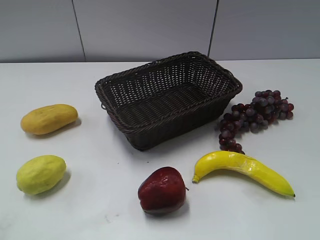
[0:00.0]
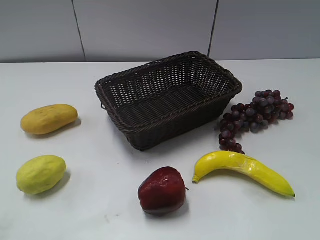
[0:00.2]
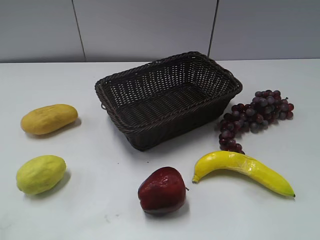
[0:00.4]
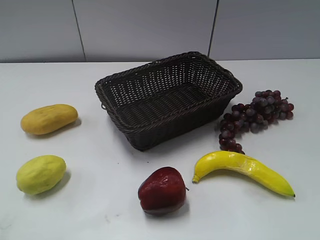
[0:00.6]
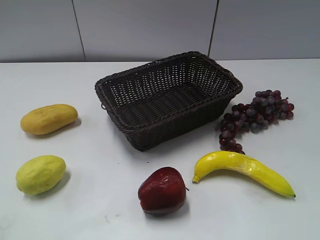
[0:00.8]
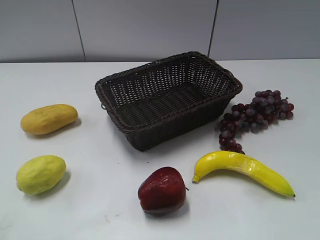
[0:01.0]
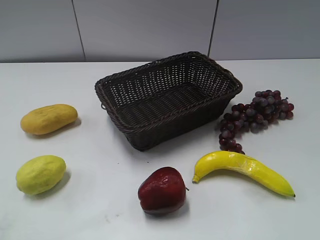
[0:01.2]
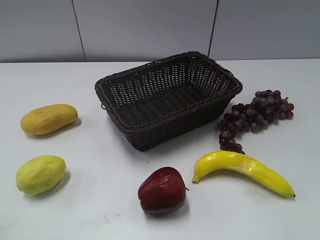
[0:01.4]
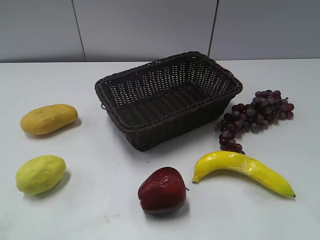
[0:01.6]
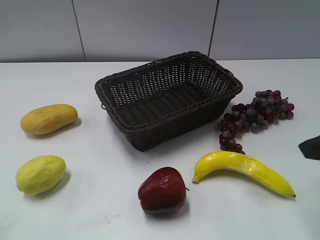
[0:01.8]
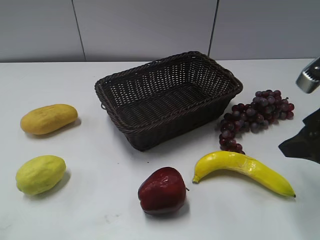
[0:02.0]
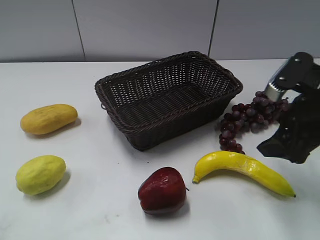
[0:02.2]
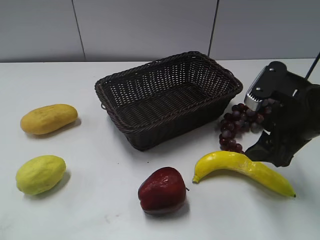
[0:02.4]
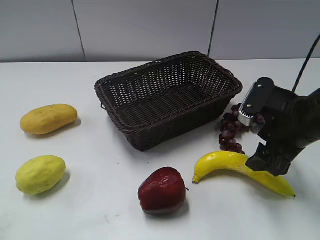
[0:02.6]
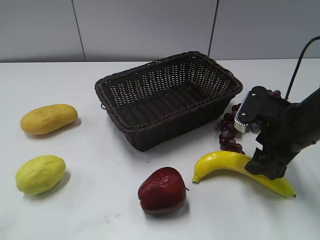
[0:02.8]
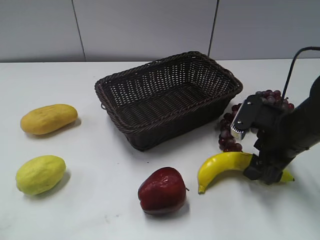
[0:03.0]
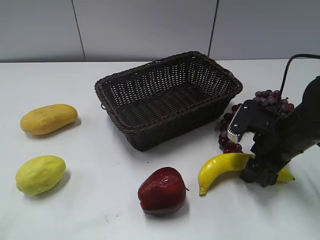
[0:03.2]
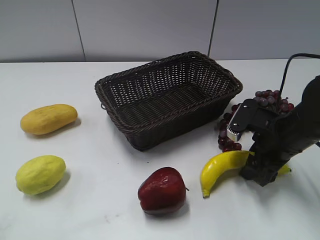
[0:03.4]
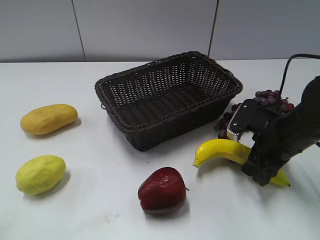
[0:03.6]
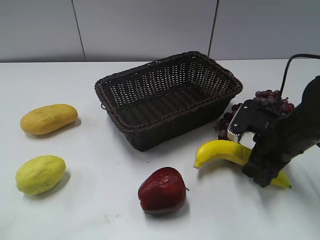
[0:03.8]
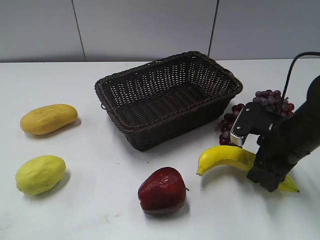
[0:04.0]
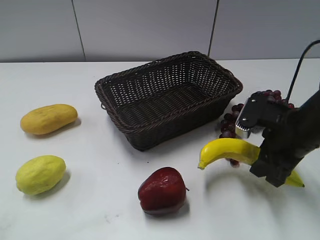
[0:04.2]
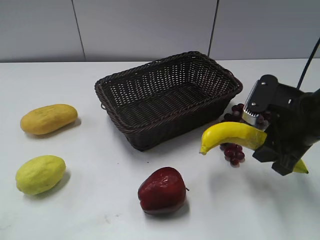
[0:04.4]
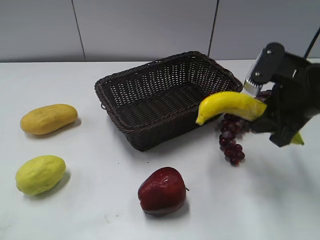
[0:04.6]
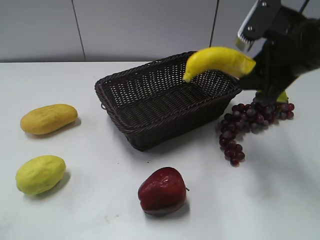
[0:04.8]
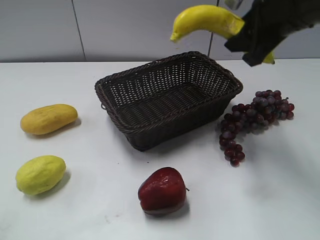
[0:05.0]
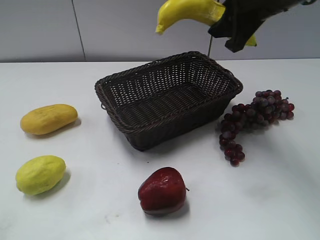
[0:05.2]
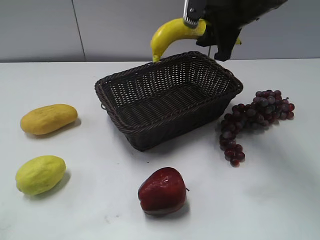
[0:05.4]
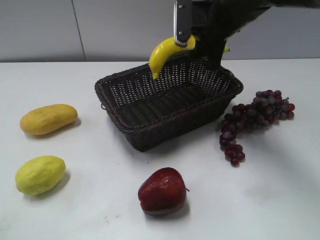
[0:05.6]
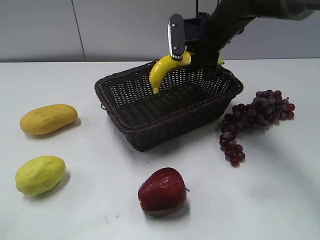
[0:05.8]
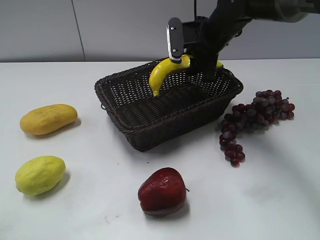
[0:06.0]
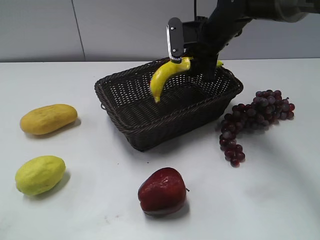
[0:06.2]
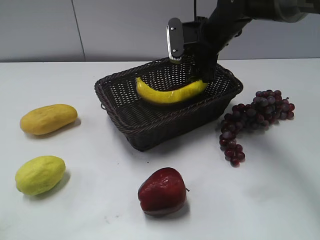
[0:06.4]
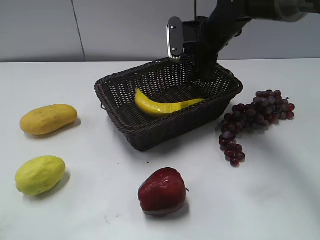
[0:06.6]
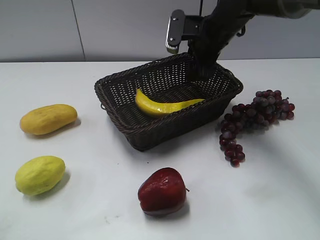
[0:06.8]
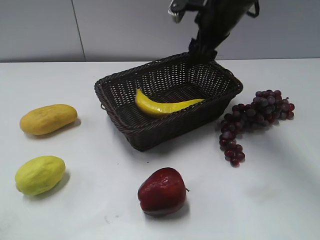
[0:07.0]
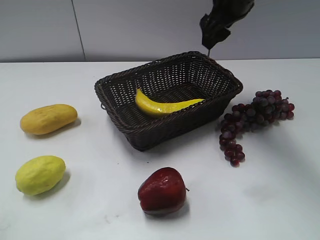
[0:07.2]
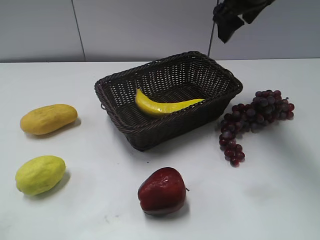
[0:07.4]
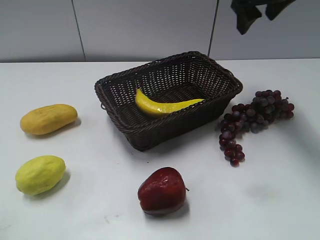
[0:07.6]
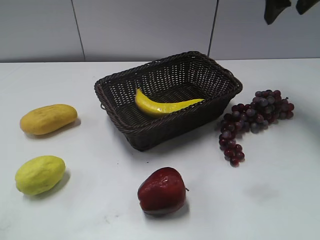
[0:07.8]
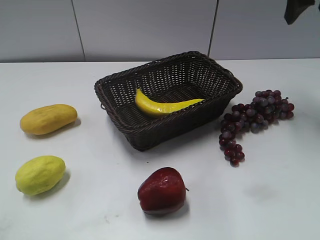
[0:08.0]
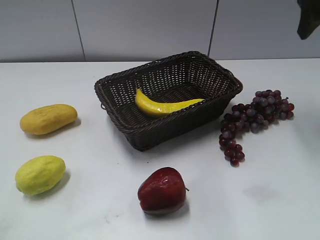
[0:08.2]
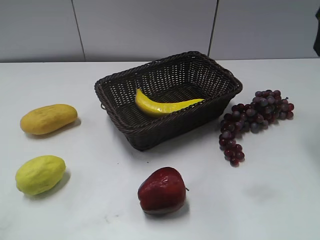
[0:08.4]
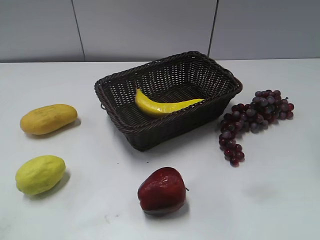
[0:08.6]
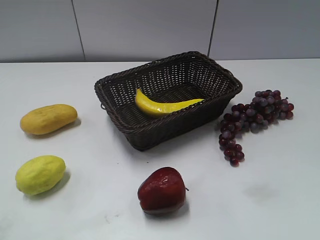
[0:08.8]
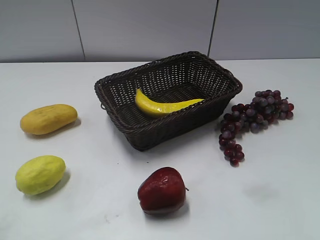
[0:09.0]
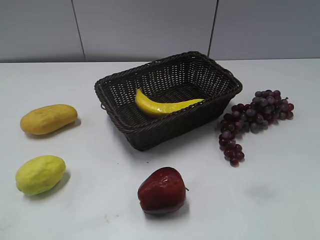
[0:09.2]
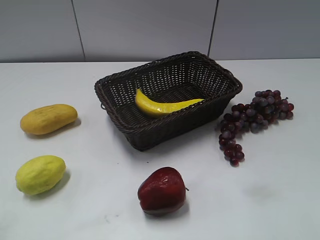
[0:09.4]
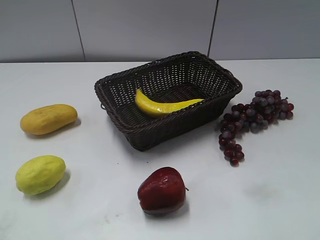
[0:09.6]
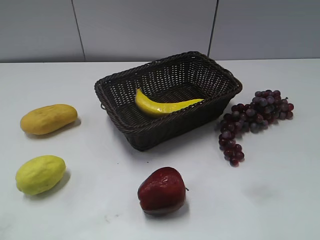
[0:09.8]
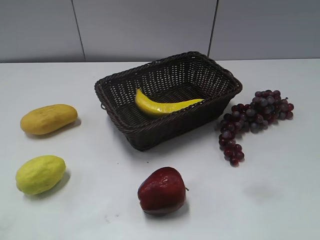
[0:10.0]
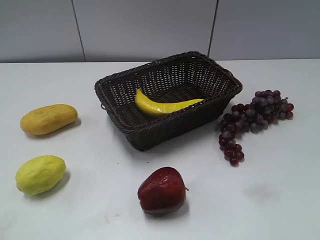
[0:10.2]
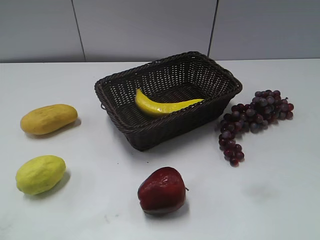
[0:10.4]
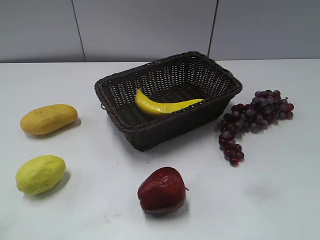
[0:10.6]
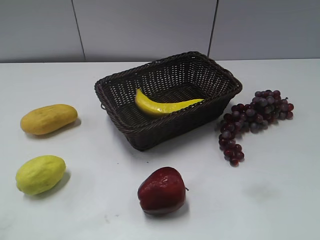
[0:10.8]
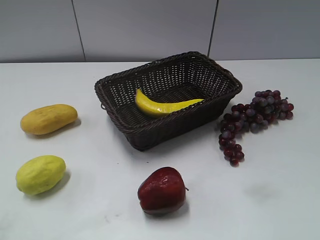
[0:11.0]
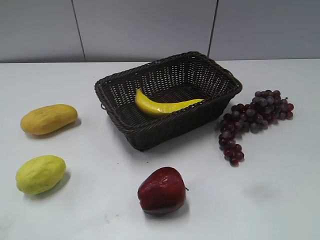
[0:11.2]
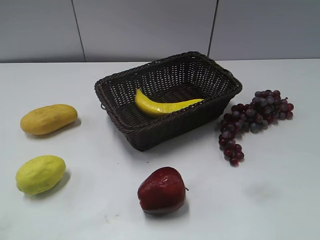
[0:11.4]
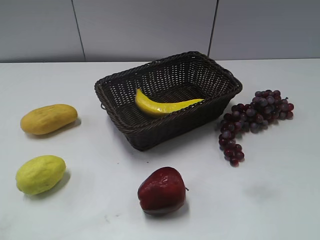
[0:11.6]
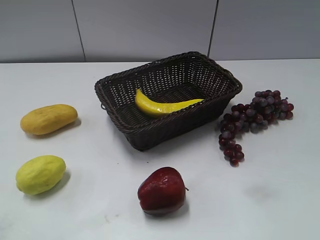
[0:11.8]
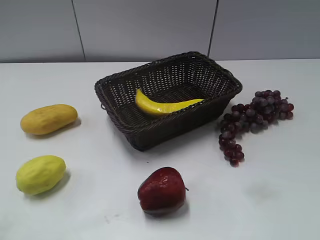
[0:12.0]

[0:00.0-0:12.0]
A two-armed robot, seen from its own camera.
Step, 0:01.8 to 0:04.0: Grasp the banana with right gripper.
Step, 0:04.2 to 0:06.8: Place the banana in the basket with right gripper.
0:01.6 to 0:03.0: The right gripper travels downward and forward by about 20 cm.
0:03.0 to 0:04.4: The right gripper shifts some 5 cm upward, and closes its fingers.
0:04.4 to 0:06.0: The right gripper moves forward and to the left, approximately 20 cm.
0:06.0 to 0:07.6: The right gripper heads upward and to the right, covering approximately 15 cm, and opens up.
0:07.6 to 0:09.0: The right gripper goes some 30 cm backward and to the right.

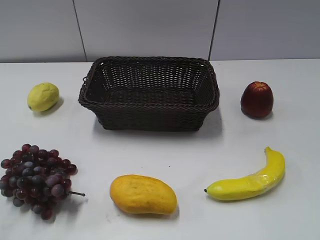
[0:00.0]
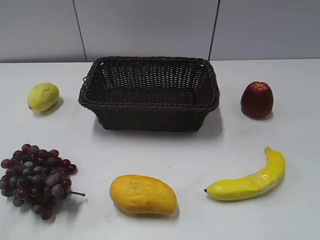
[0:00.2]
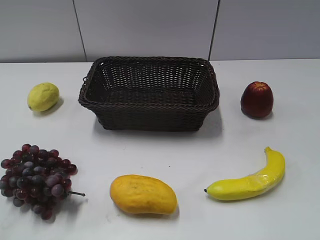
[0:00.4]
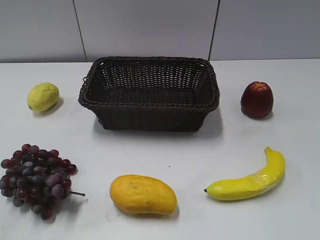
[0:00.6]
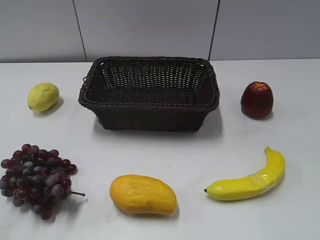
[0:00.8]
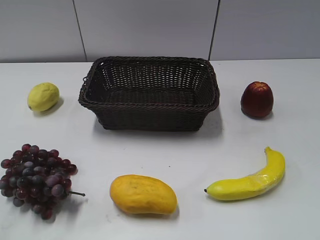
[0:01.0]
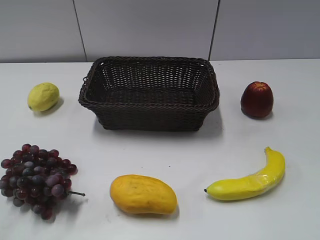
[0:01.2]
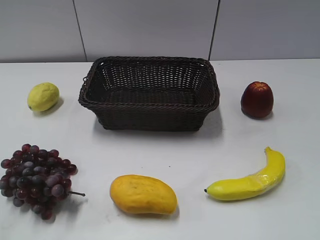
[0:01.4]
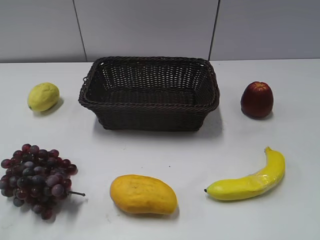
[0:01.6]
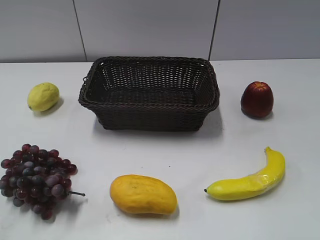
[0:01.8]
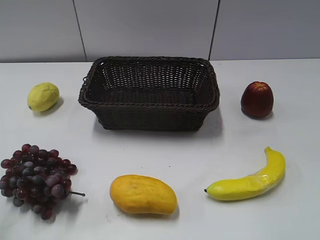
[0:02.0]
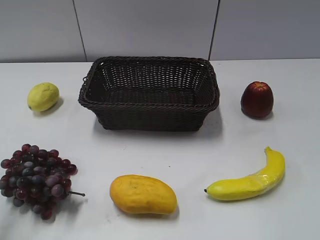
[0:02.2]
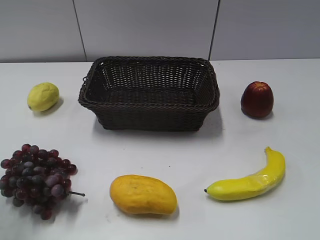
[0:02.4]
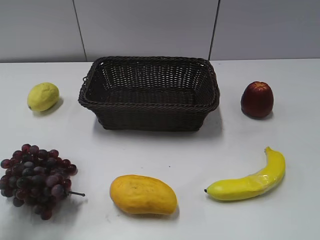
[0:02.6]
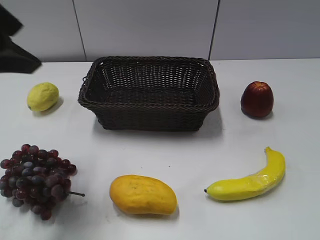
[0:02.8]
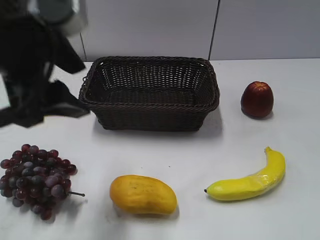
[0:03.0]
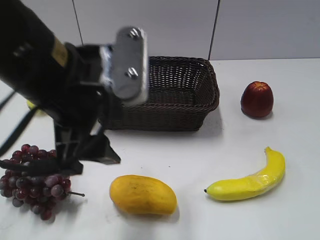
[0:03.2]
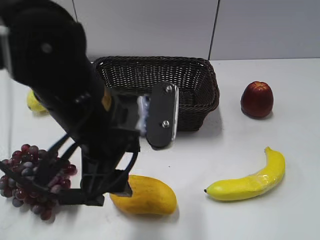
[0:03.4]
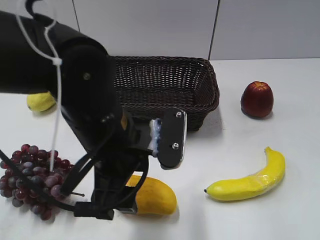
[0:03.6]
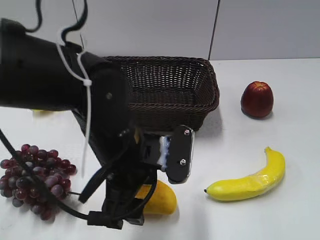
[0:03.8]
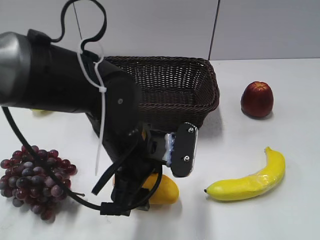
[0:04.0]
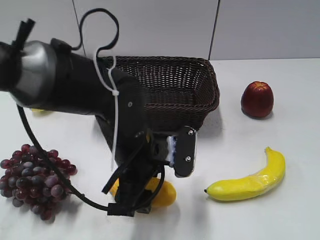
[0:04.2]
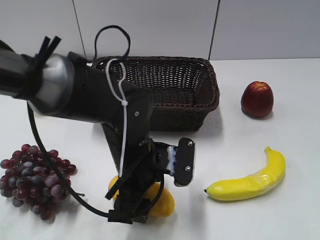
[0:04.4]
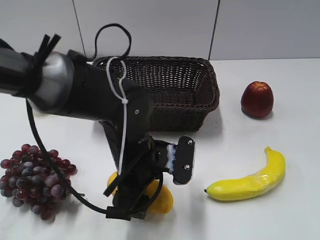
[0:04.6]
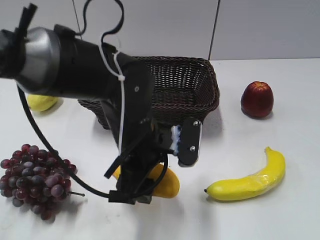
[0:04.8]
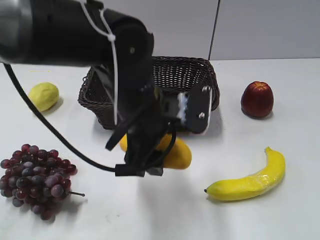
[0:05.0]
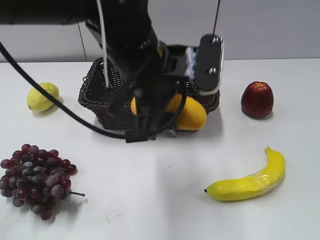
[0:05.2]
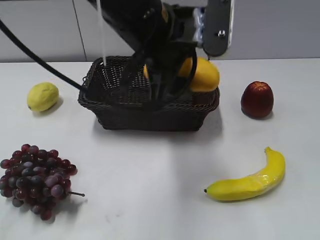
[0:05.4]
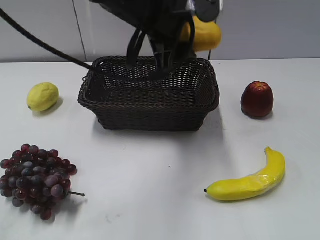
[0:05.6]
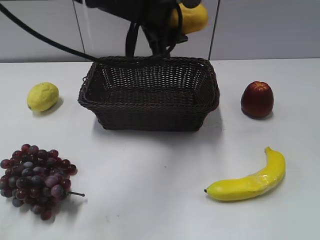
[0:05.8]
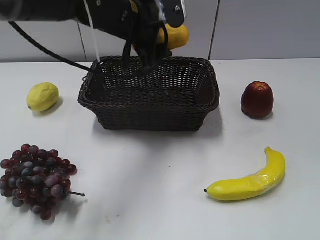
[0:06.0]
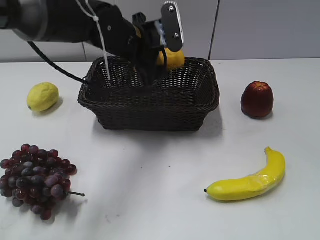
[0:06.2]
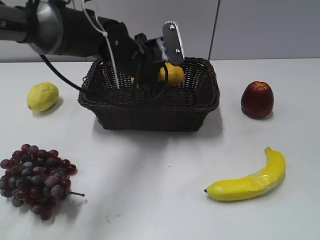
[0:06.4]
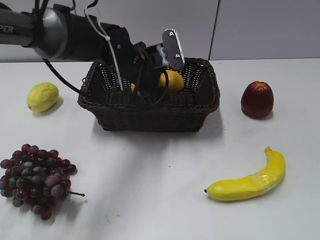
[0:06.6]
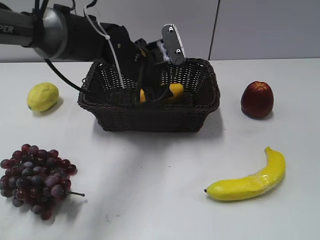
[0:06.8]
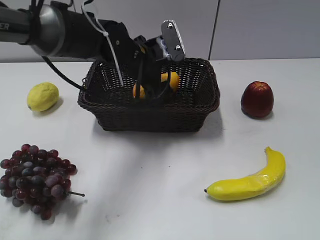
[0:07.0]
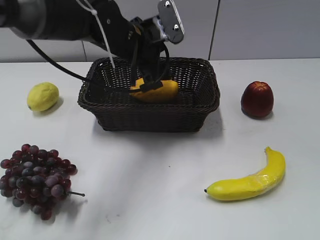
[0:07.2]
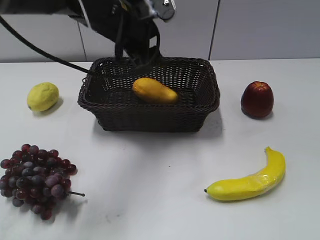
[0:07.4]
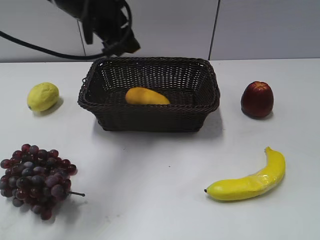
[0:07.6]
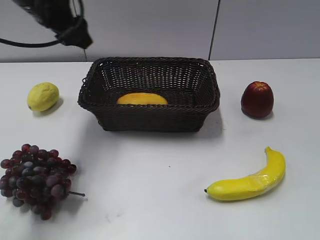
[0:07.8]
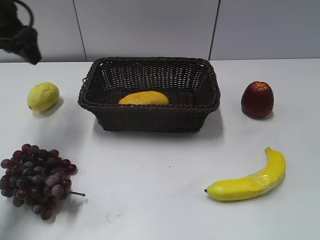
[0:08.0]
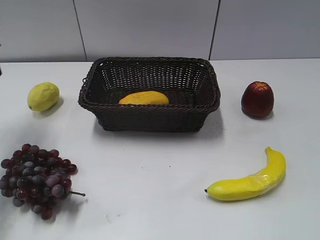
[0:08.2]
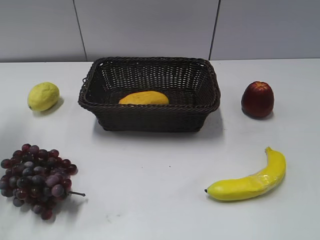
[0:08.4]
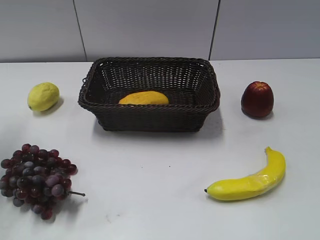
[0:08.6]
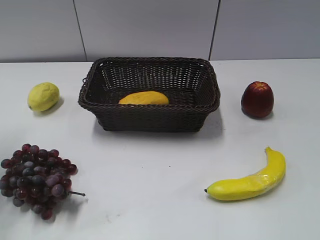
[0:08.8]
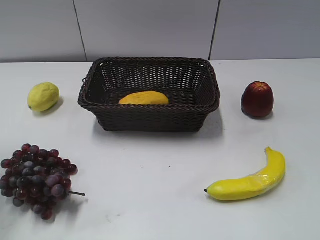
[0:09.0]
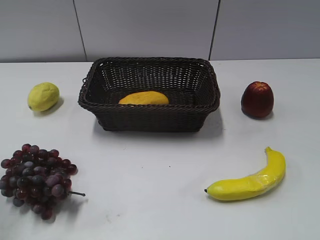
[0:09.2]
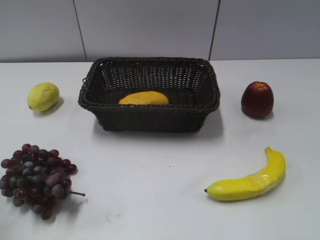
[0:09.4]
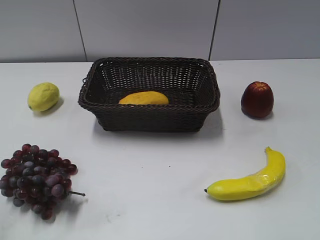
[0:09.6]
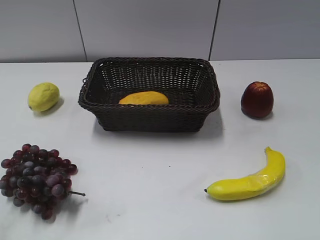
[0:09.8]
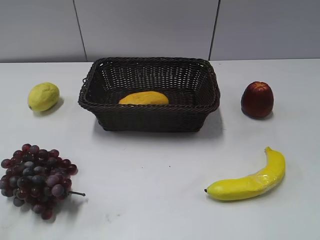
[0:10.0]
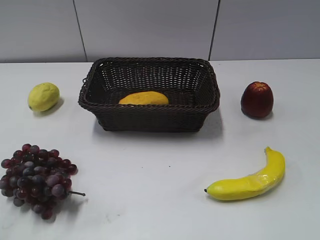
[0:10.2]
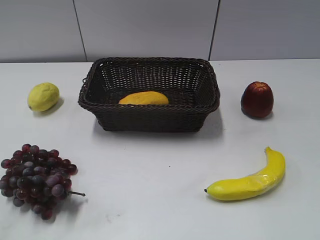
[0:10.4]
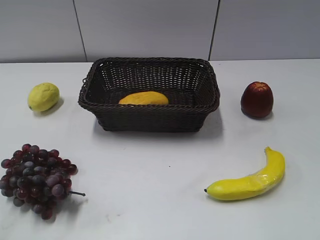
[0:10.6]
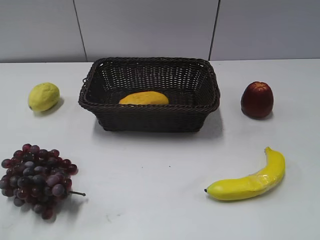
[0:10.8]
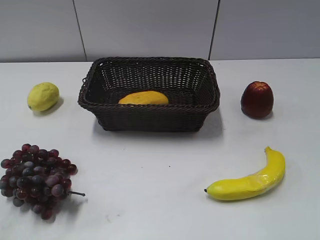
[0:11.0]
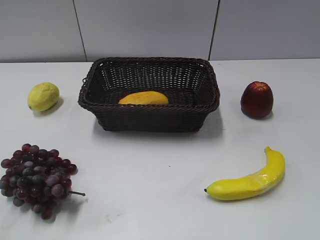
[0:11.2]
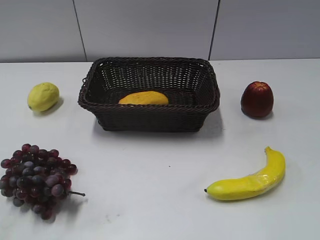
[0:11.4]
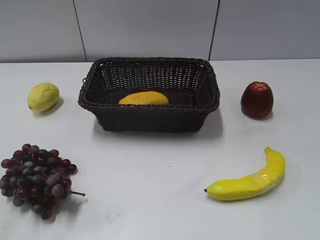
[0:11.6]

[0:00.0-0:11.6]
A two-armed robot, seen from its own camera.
Step, 0:02.8 to 0:04.4: Grasp the mango with left gripper.
Step, 0:04.6 to 0:06.8: Place the mango in the basket with left gripper.
0:01.4 to 0:02.8: The left gripper heads forward and to the right, covering approximately 25 cm, and opens up.
0:02.8 to 0:04.4: The left gripper shifts about 30 cm downward and to the right.
0:04.4 to 0:05.8: The left gripper goes some 20 cm upward and forward.
0:05.8 to 0:07.2: The left gripper moves downward, some 5 cm.
0:07.2 to 0:08.8: The left gripper moves to the left, some 30 cm, and closes.
